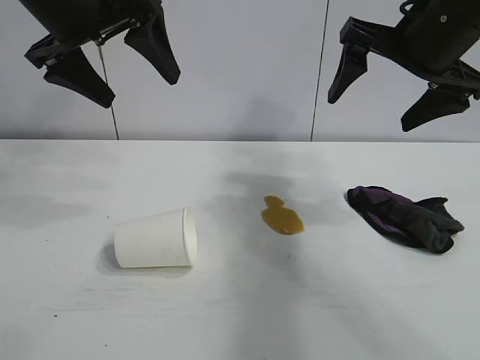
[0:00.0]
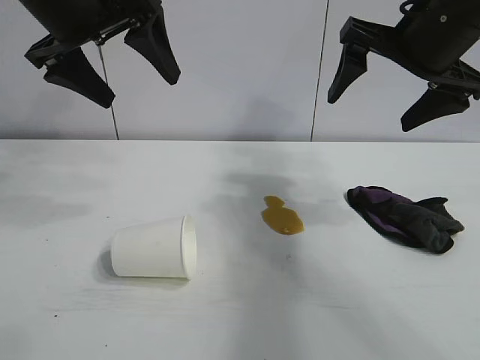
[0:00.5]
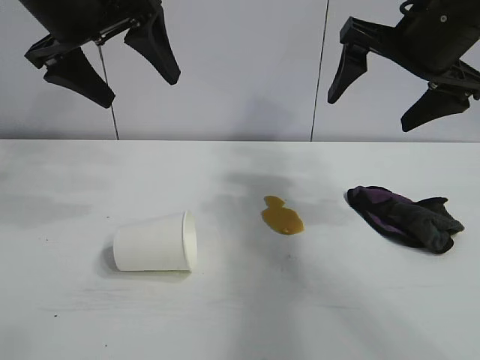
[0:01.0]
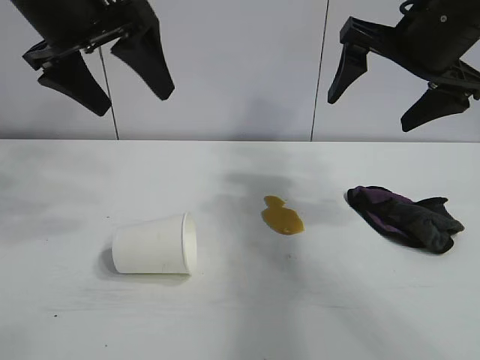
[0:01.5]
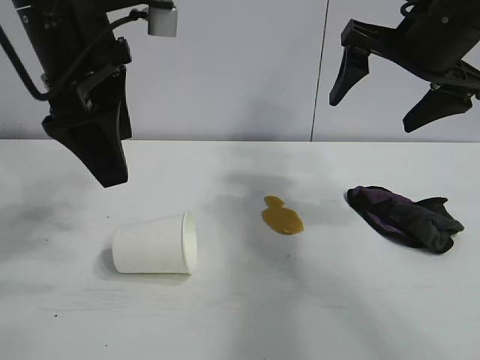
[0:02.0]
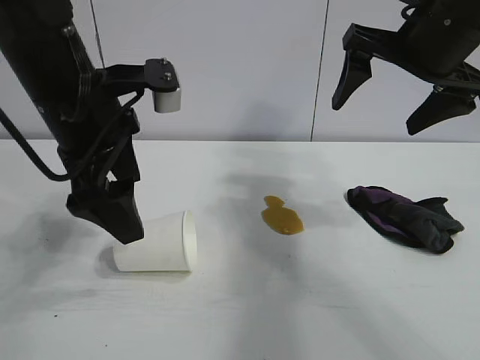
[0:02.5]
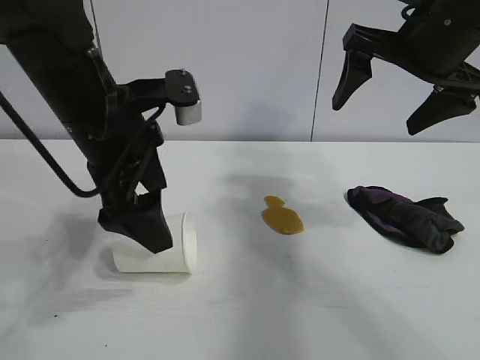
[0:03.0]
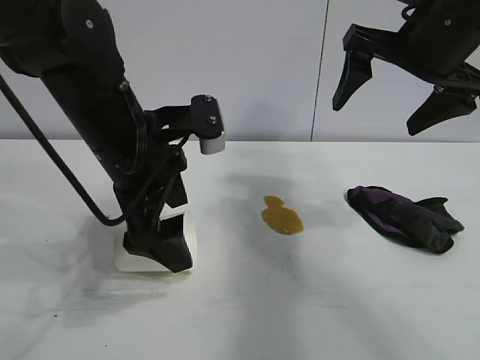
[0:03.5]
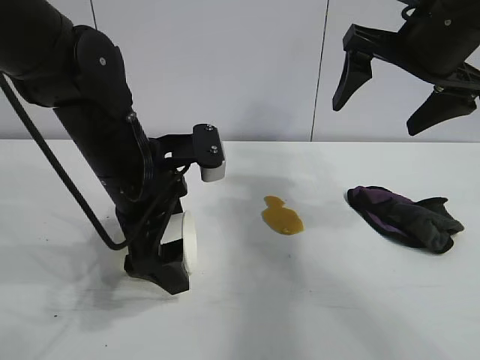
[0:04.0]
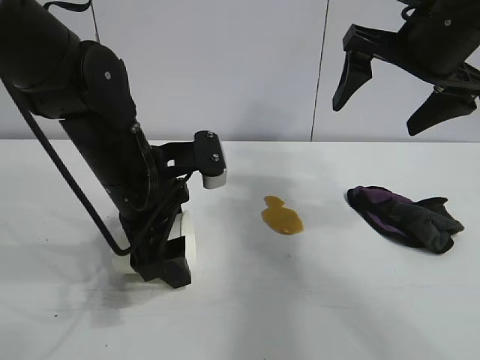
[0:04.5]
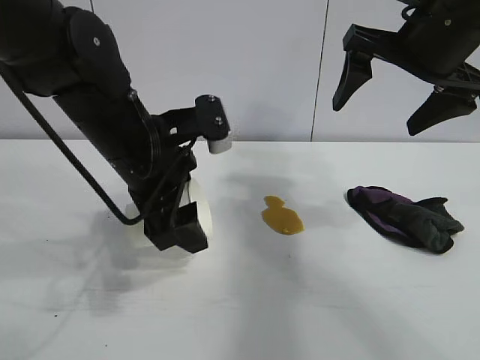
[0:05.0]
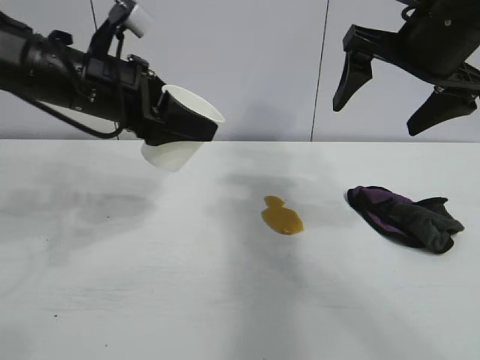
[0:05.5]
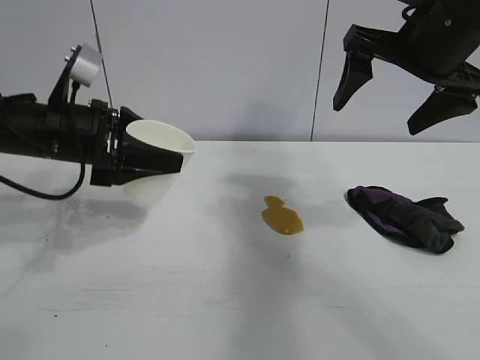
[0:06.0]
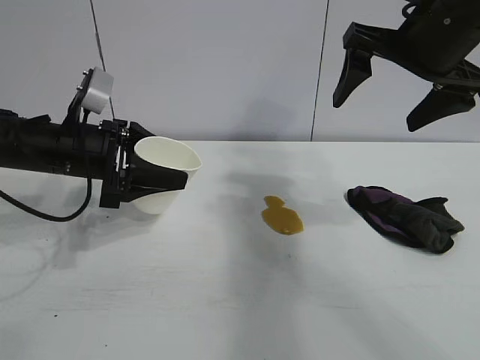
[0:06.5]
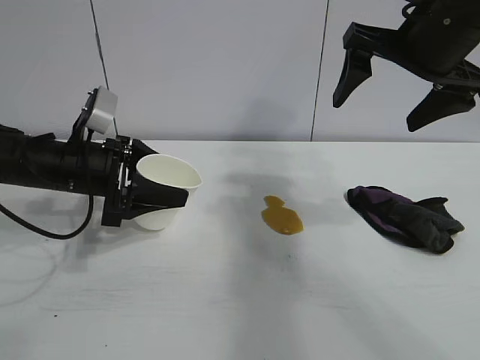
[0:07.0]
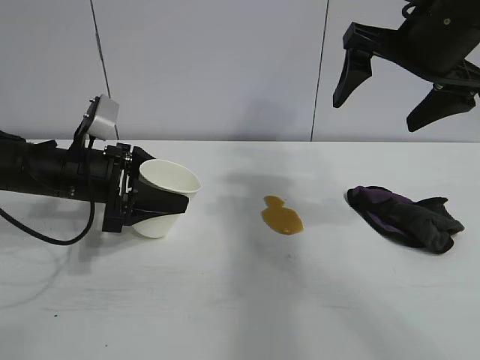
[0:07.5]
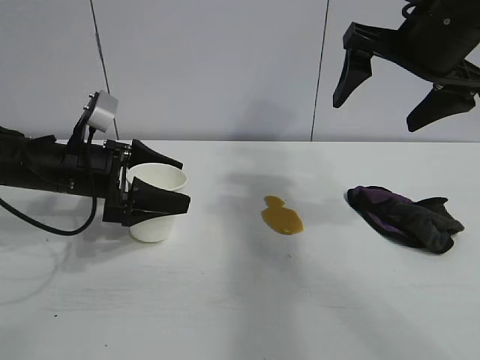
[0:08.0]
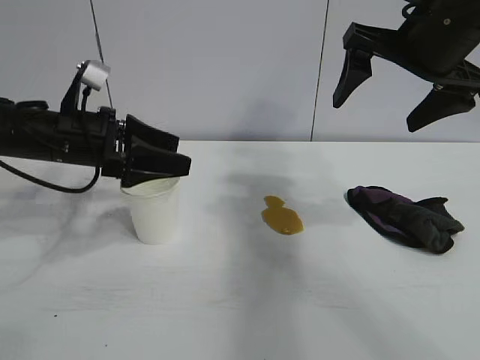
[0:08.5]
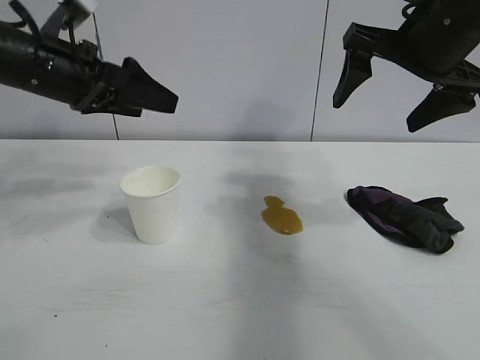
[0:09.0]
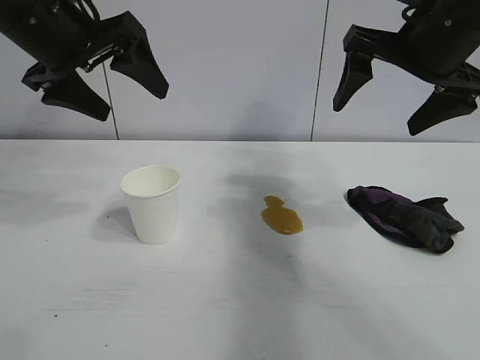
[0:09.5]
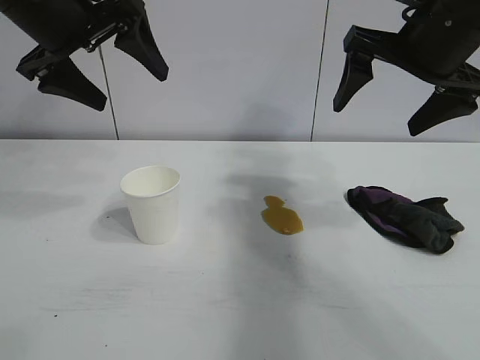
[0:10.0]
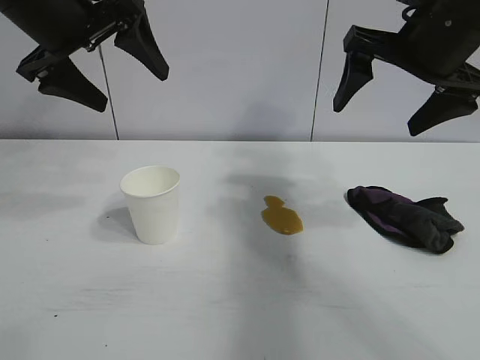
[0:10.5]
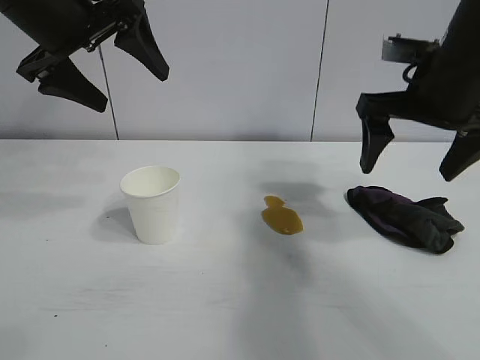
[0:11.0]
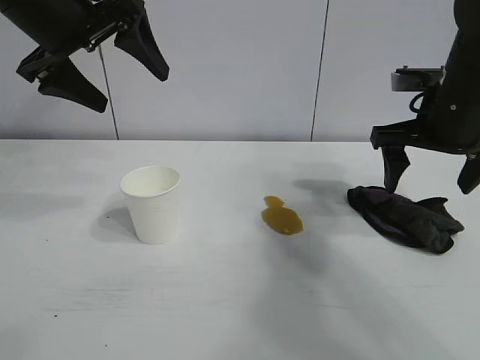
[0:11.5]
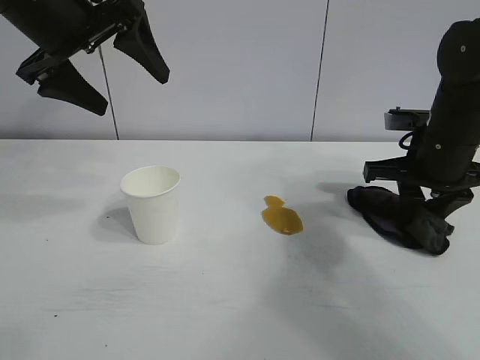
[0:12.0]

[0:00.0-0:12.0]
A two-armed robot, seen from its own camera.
Task of the whole recording: the left gripper pick up the fallen cup and place it upright, the right gripper grasp the black rag and wipe the stain on the table, the right gripper put the black rag back in its original position.
Step, 0:01.5 to 0:04.5: Grasp the paper cup with left gripper.
Step, 0:05.0 to 0:08.0: Stand the paper cup upright with left gripper.

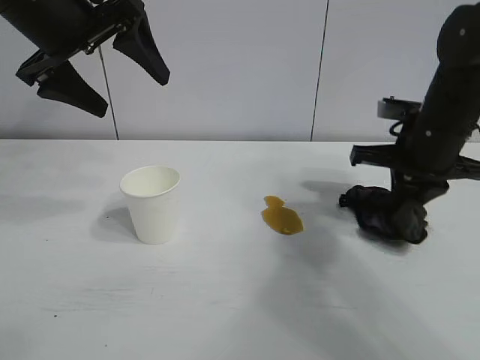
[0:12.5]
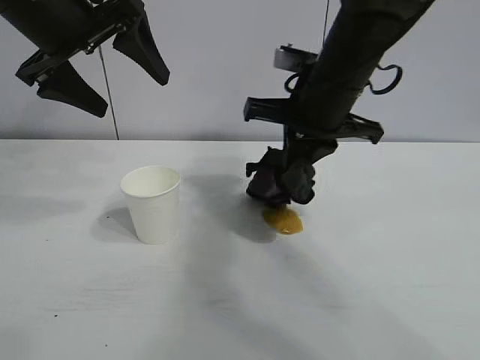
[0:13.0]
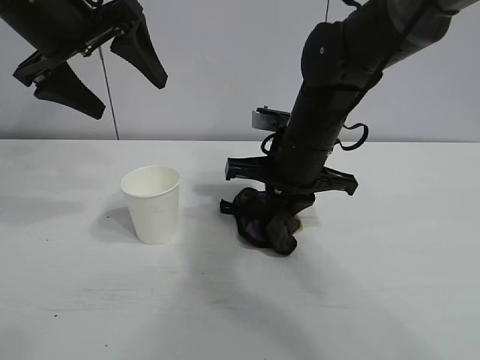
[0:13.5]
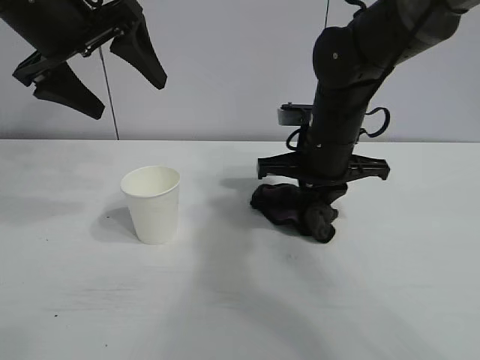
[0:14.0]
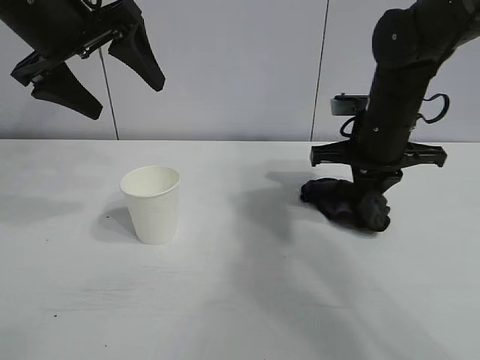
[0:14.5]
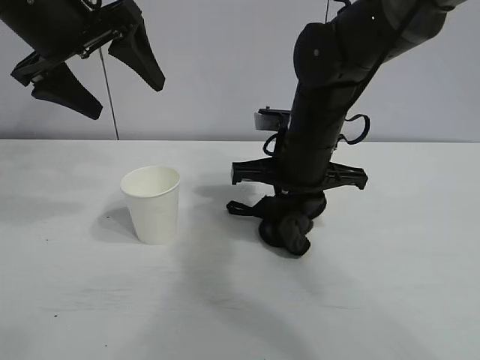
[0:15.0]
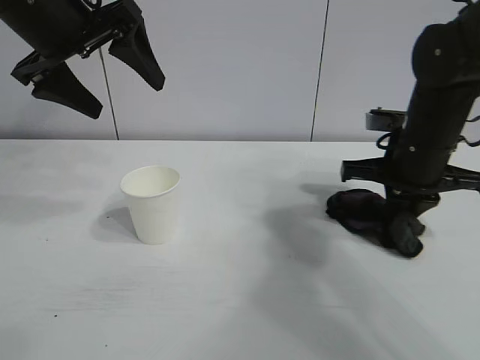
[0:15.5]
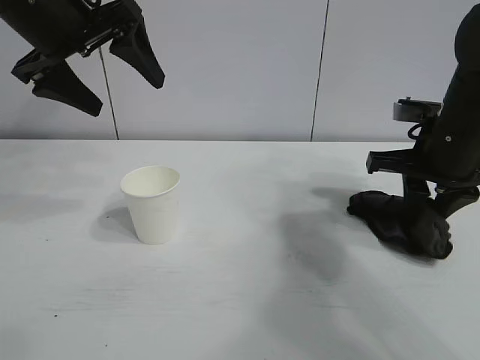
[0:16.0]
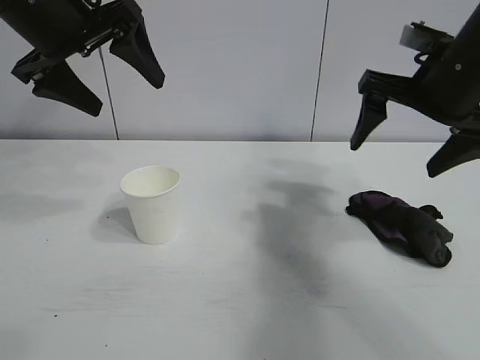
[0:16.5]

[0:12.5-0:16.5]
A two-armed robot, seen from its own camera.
Task of the whole recording: the left gripper pick up the fallen cup and place it upright, the right gripper grasp the black rag and wipe the stain on the table, the right gripper put the black rag back in its original position.
Step, 0:12.5 to 0:15.5: Wipe the stains off the table with the rag with right gripper.
